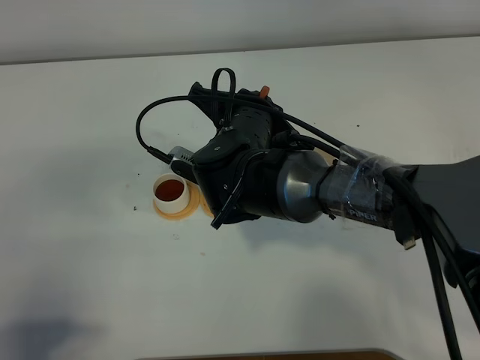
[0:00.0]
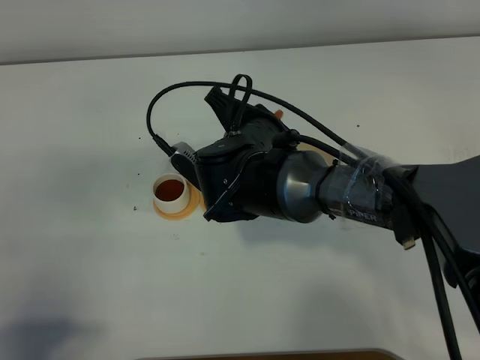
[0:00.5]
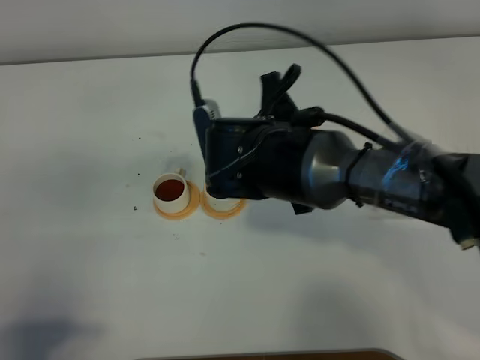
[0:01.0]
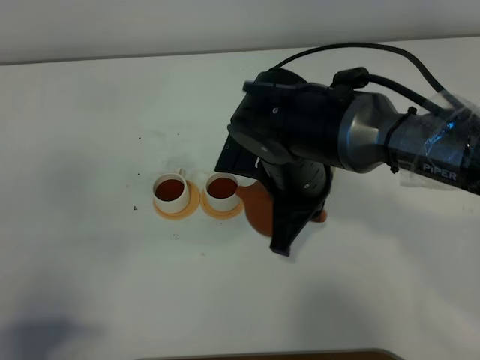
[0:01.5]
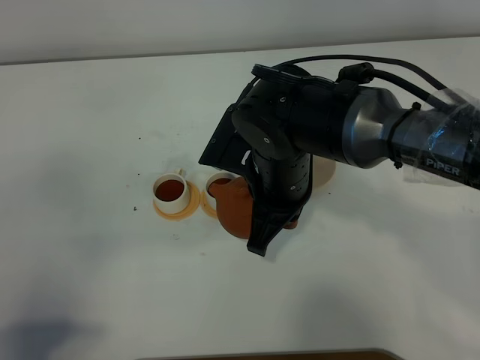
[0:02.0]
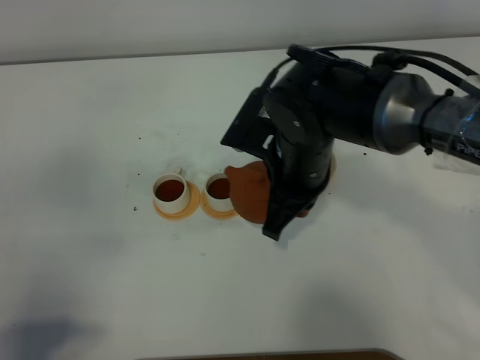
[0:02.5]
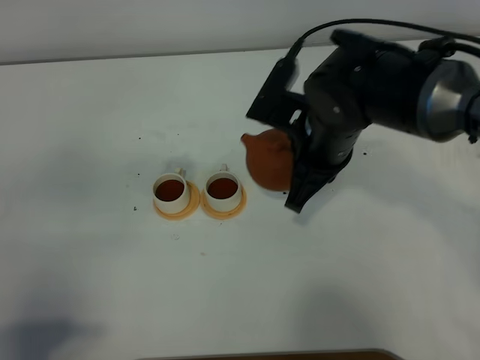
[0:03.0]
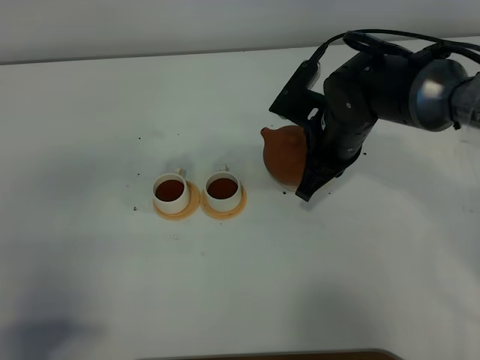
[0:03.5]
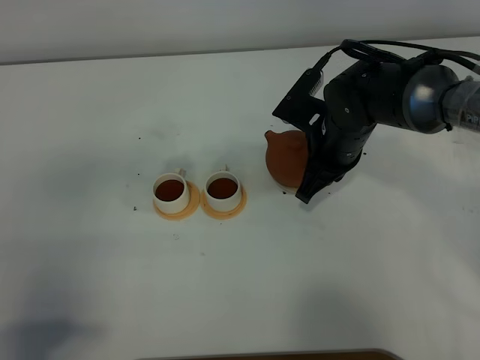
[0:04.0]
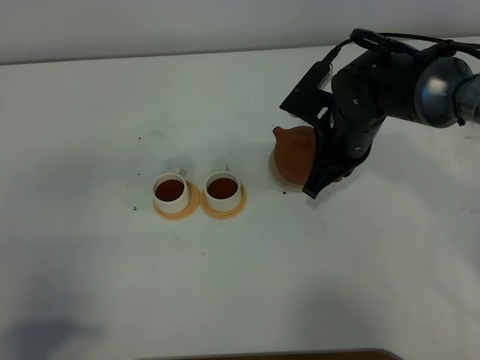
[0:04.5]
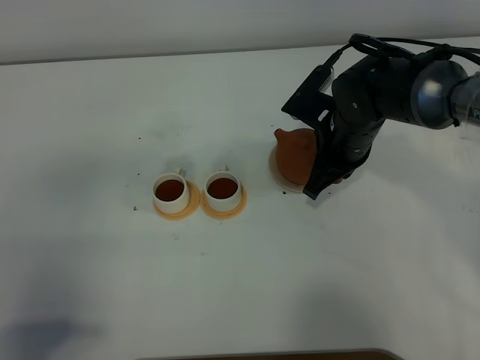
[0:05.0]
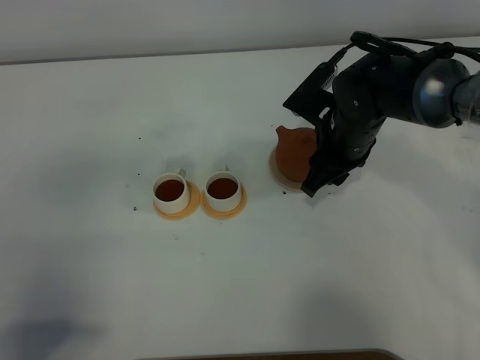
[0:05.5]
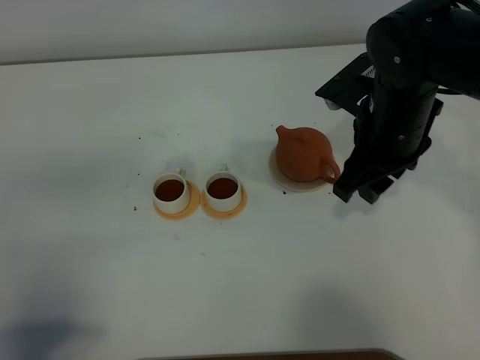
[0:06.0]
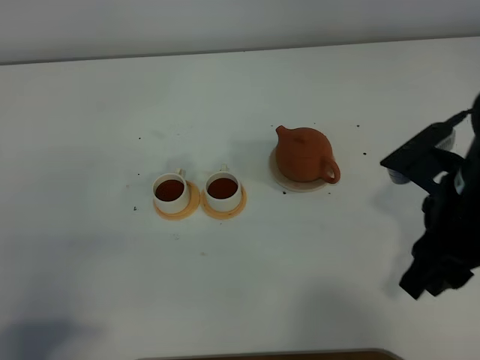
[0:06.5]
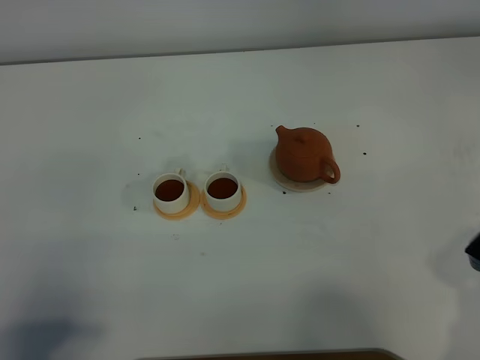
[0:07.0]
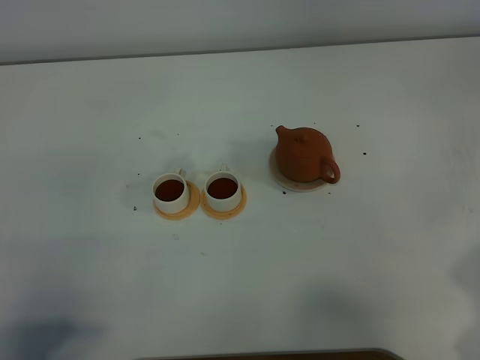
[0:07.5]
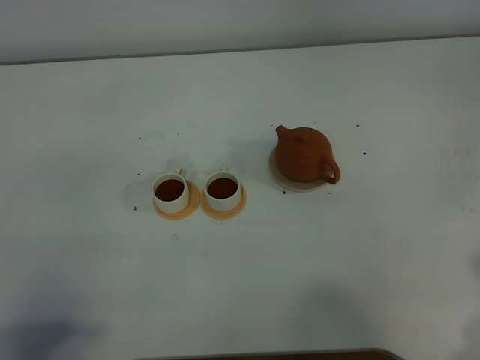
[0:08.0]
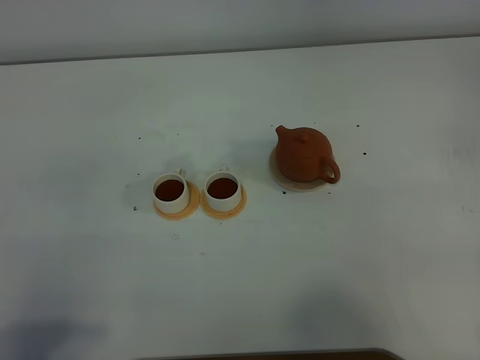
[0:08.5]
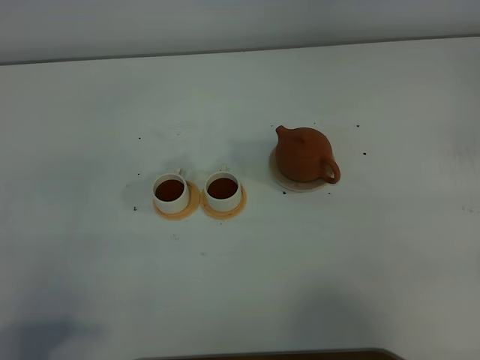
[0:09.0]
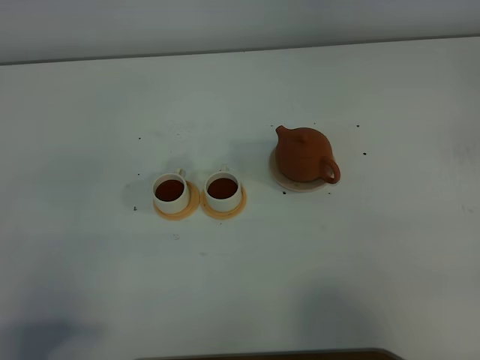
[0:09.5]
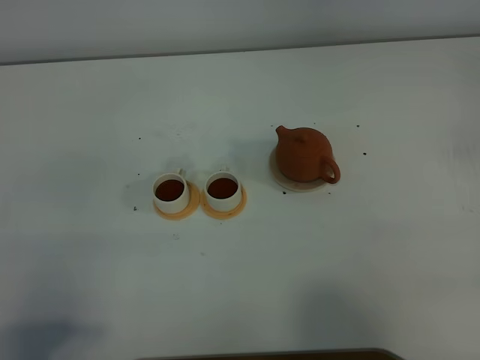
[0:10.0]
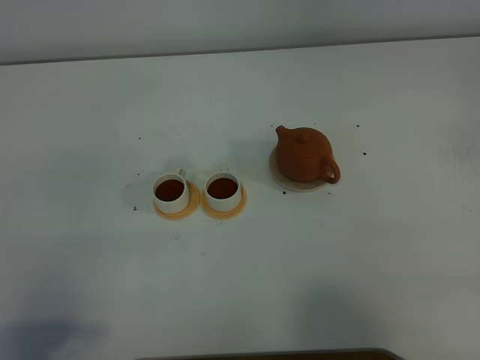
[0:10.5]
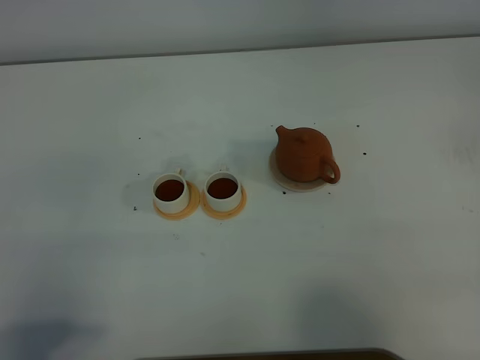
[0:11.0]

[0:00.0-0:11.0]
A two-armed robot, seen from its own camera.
Task of the whole recording: grasp the brown teapot and pour the tea into the two white teacups one by one, put the brown teapot back in its original place.
0:00.0 to 0:02.0: The right gripper shifts by approximately 5 cm.
0:02.0 to 0:03.5: The right gripper shifts roughly 10 cm forward and to the right.
0:03.5 to 0:05.5: The right gripper opens.
0:05.5 to 0:07.5: The right gripper goes roughly 30 cm backward and to the right.

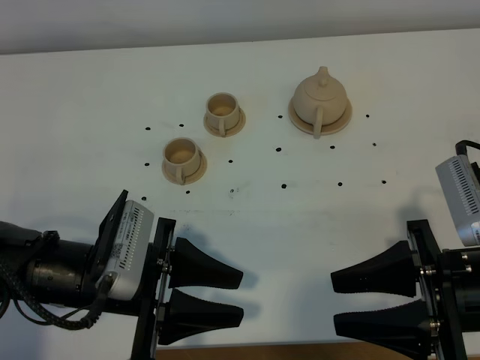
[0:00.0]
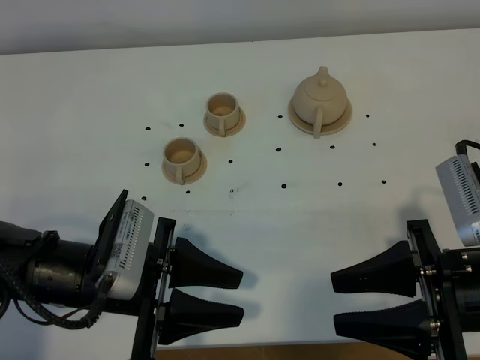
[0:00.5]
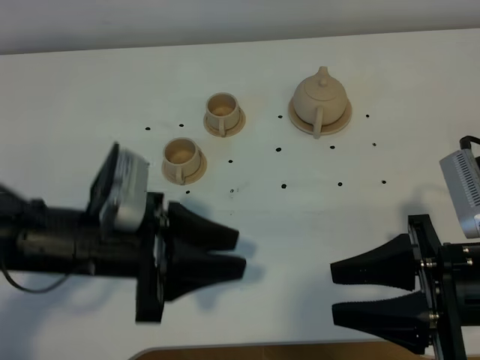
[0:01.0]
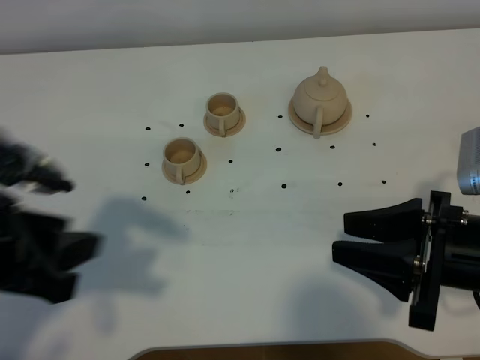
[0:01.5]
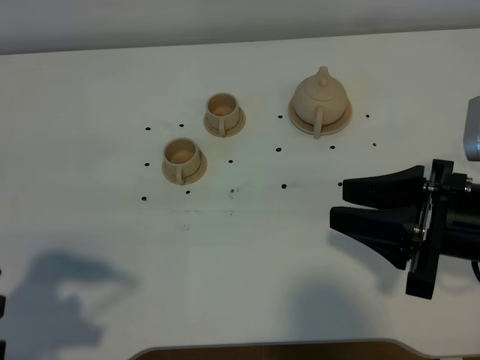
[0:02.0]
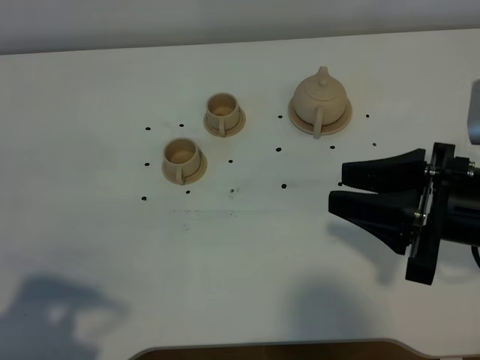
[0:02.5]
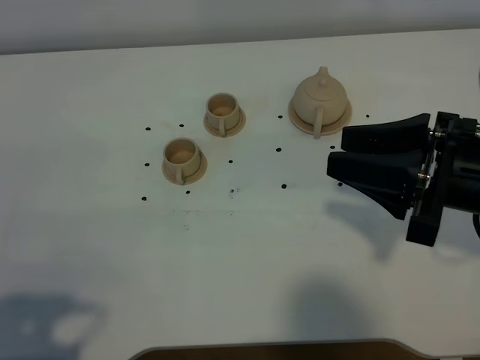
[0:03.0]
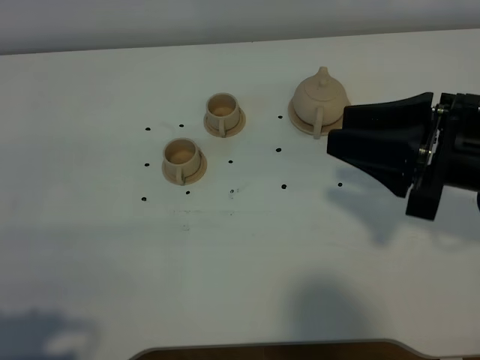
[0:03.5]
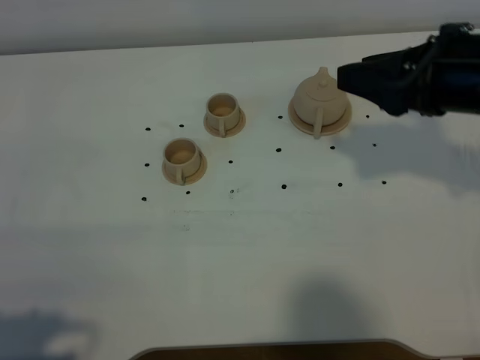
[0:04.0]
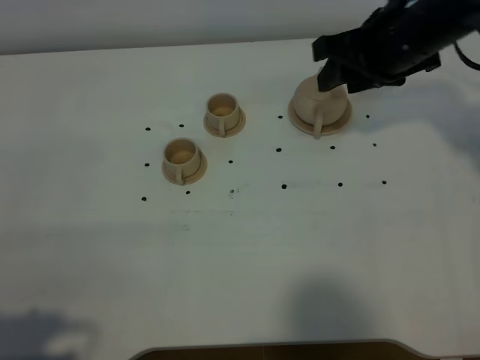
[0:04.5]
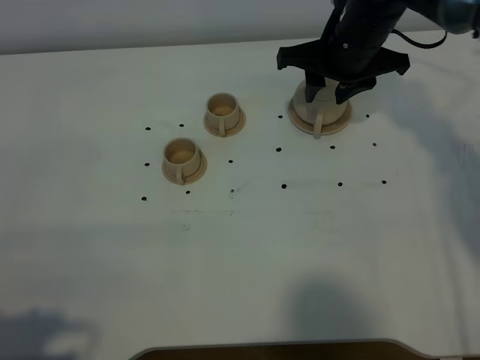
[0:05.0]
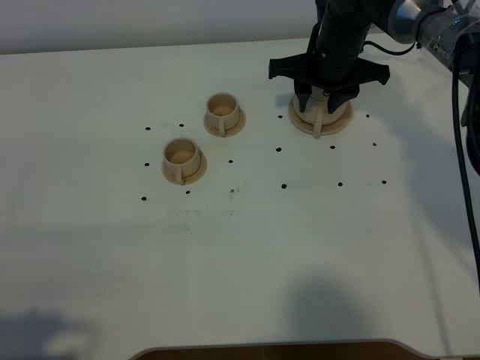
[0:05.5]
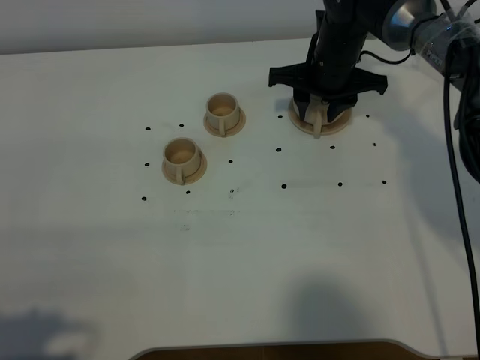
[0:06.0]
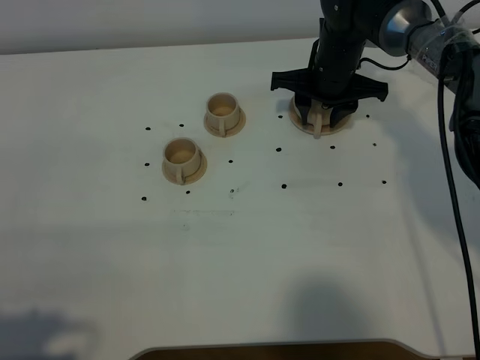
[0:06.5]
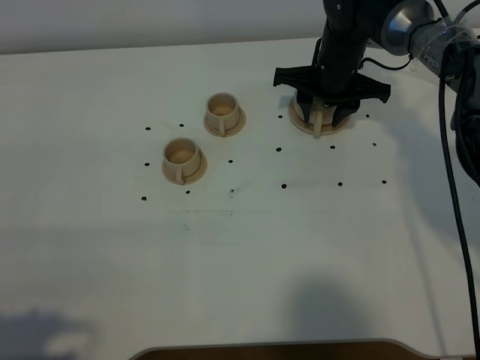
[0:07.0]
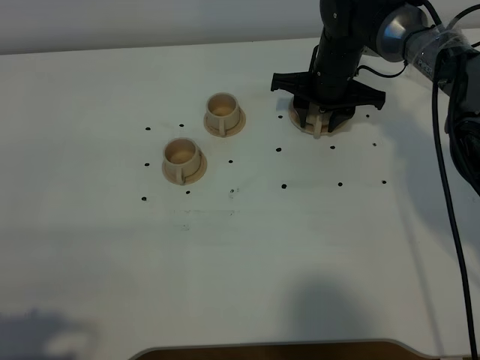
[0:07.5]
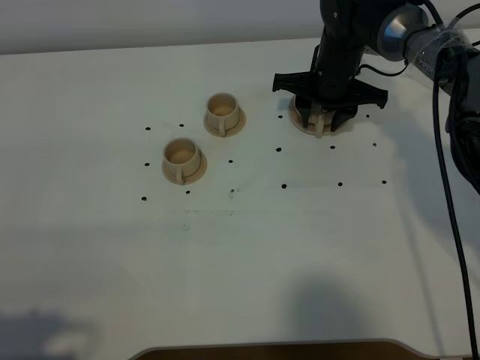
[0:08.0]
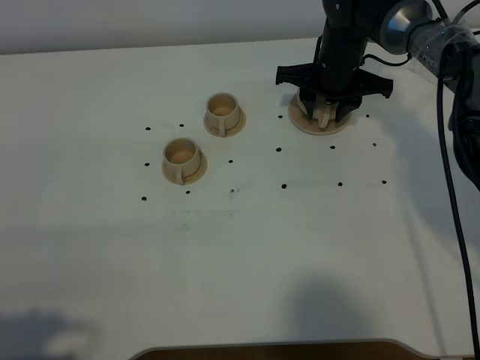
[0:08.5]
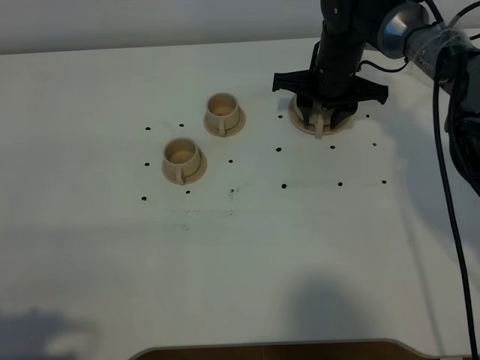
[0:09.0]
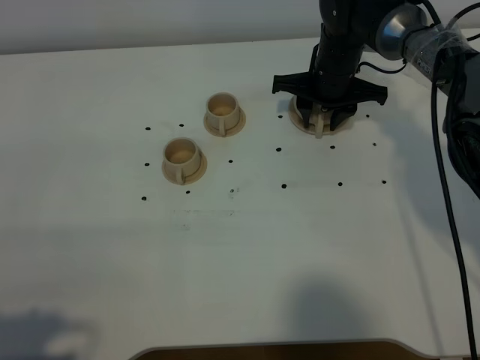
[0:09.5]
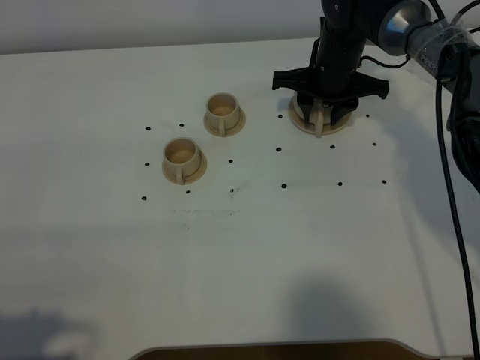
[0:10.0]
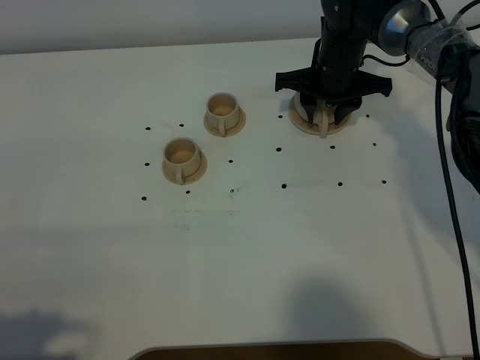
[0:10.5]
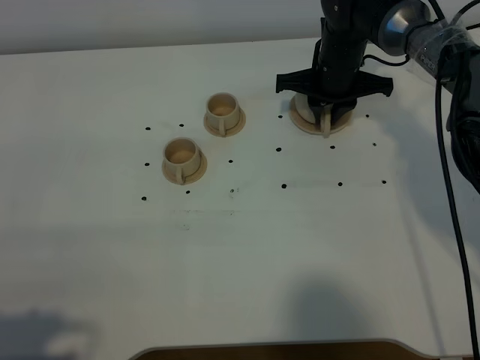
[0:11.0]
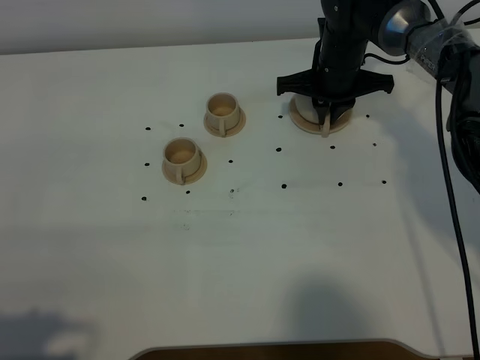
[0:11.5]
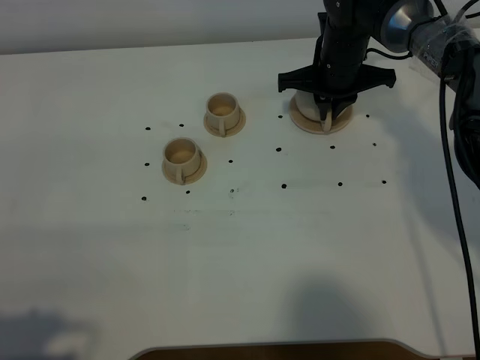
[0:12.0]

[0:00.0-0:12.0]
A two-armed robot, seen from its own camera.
Task of the whole recording: grasp the brown teapot and pour the tea into the two brown teacups one by one, put the brown teapot back in its original place.
0:00.0 to 0:02.0: The left gripper moves to the left, upward and backward, about 20 cm.
0:02.0 to 0:04.0: The left gripper moves backward, approximately 5 cm. Meanwhile the right gripper is displaced forward and upward by some 15 cm.
0:04.0 to 0:06.0: The right gripper goes about 25 cm forward and downward.
0:06.0 to 0:10.0: There are only small adjustments of the grippers.
0:10.0 to 0:12.0: The right gripper closes.

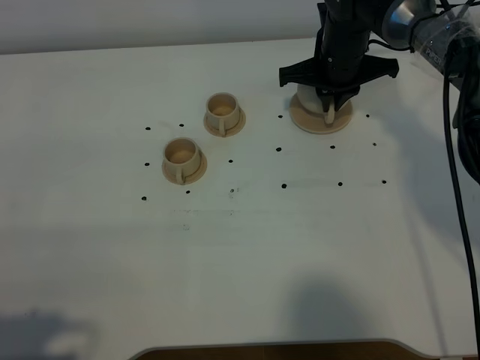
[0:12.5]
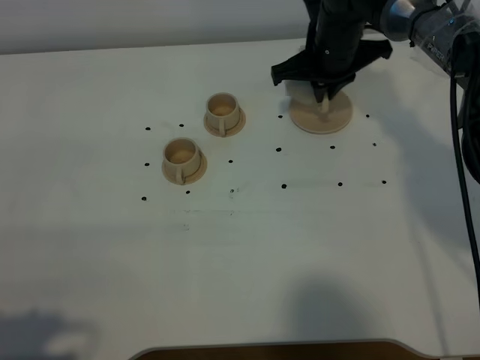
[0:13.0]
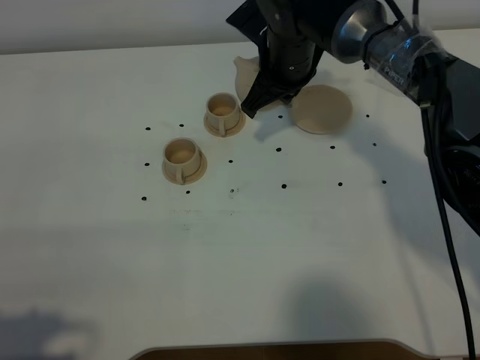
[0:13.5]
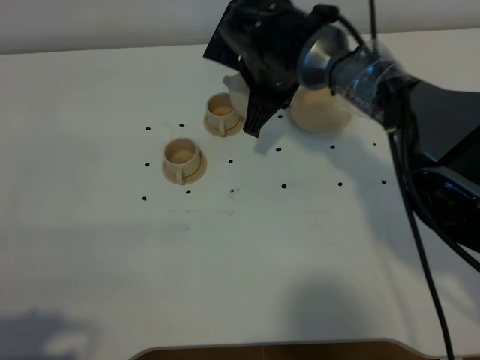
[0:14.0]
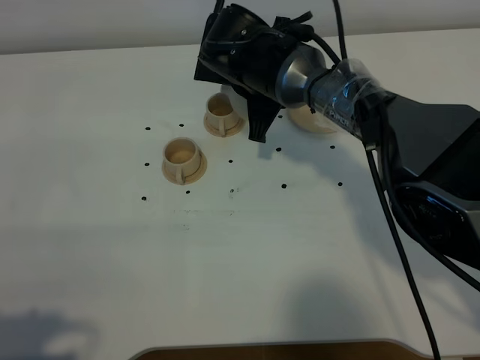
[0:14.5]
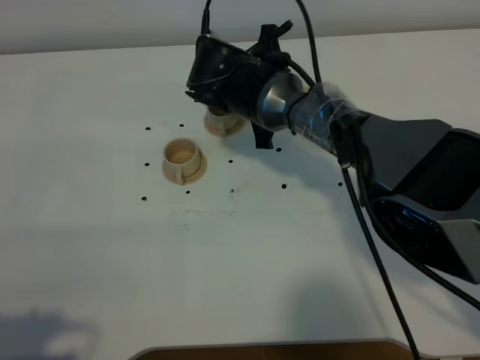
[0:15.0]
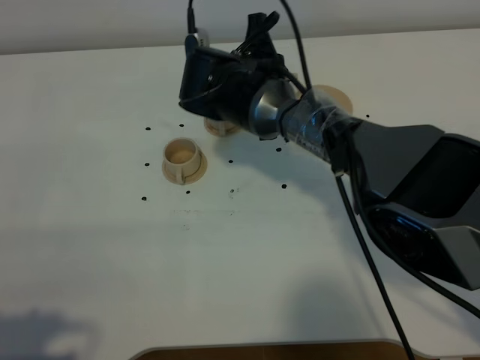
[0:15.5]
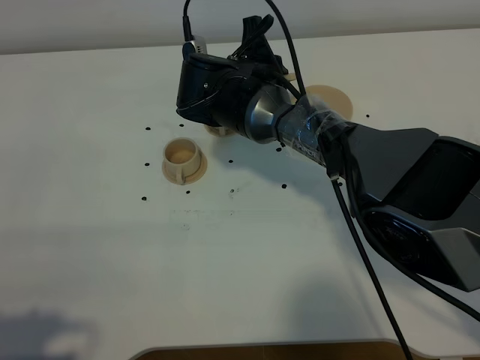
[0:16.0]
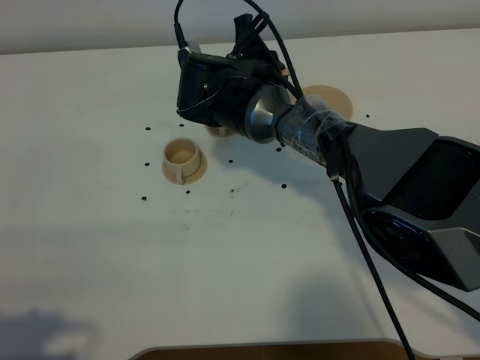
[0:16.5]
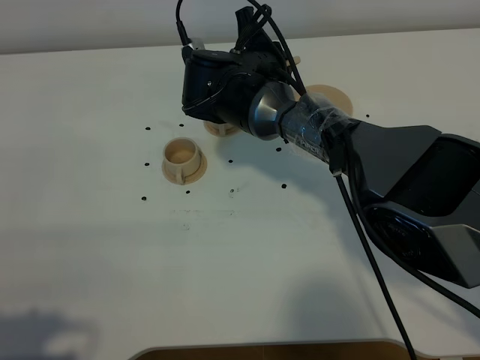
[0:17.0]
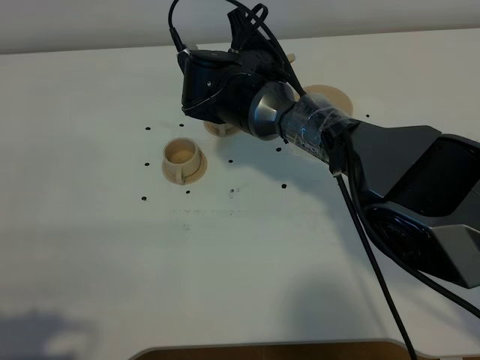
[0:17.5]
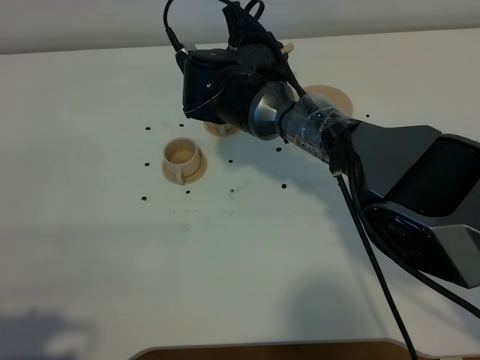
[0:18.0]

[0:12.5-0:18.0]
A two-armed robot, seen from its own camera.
Task of the whole recording: grasp the brown teapot and pour the tea into the two brown teacups one by one, put the brown teapot back in its original place.
0:12.5 to 0:14.5: The right gripper shifts roughly 10 cm to the left.
0:16.0 to 0:18.0: The grippers stay close to where they were, moving slightly.
